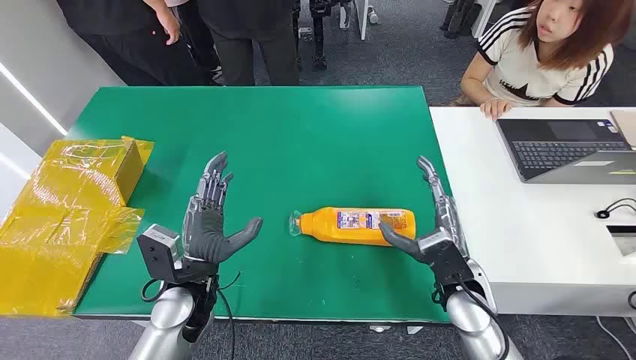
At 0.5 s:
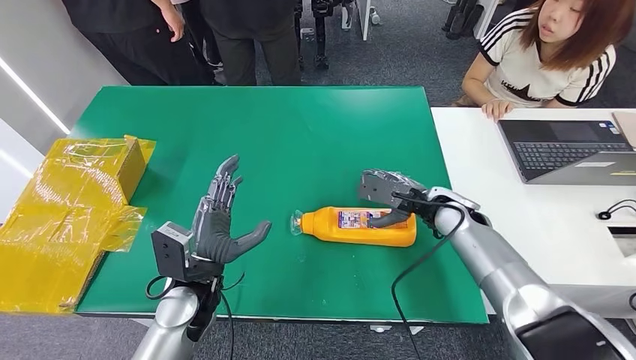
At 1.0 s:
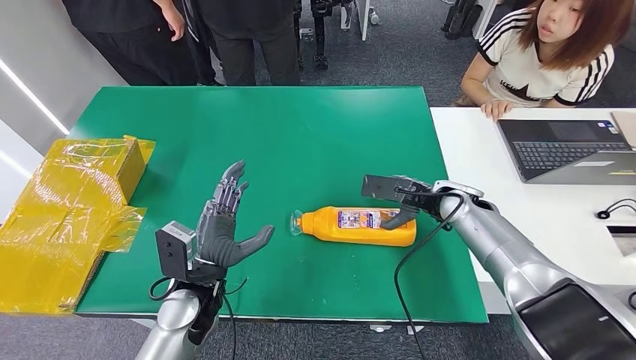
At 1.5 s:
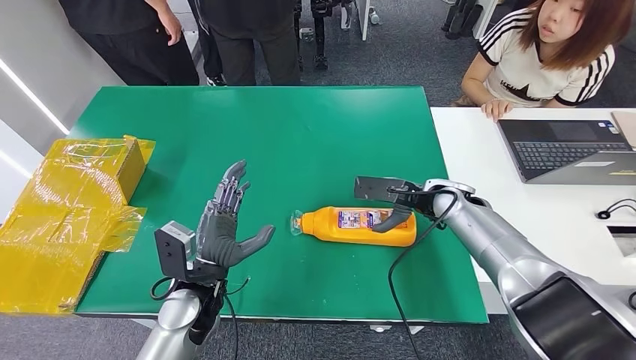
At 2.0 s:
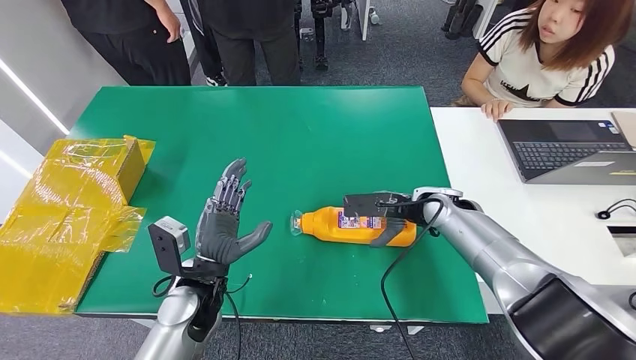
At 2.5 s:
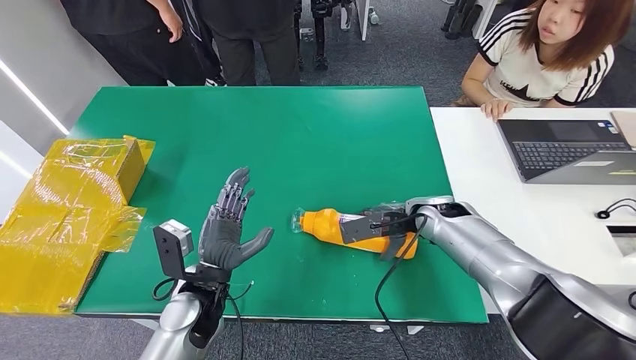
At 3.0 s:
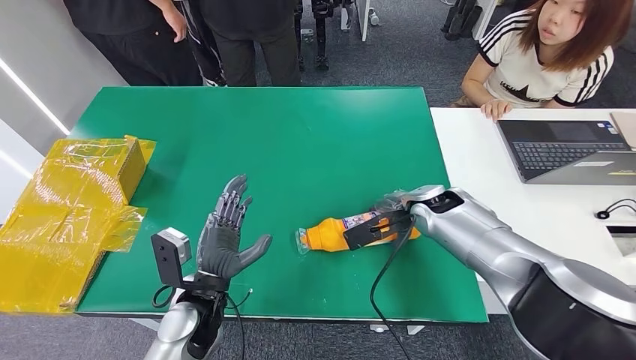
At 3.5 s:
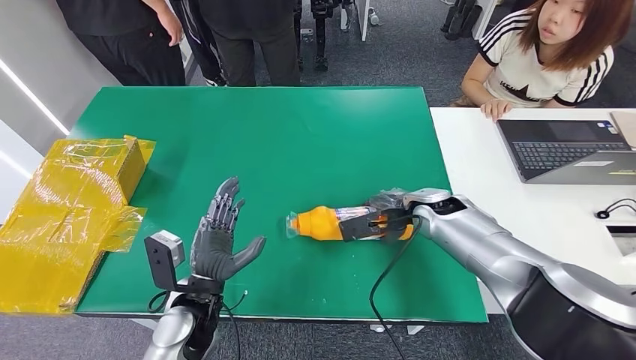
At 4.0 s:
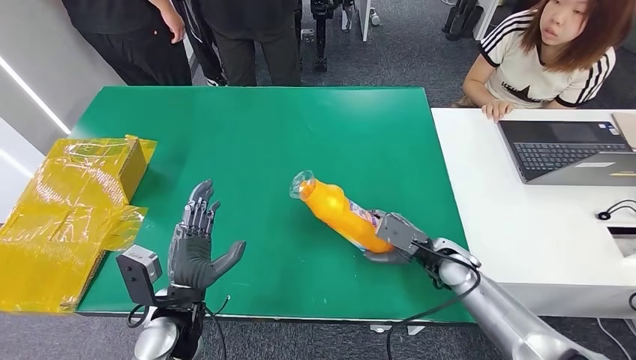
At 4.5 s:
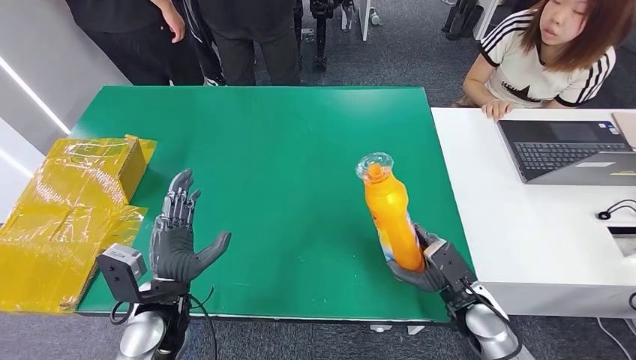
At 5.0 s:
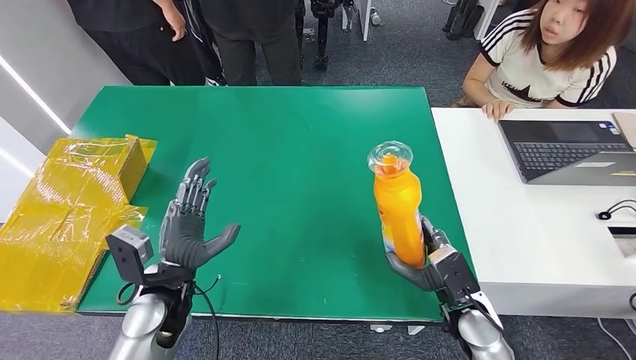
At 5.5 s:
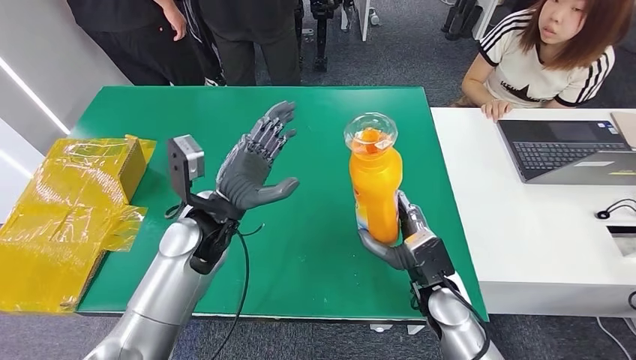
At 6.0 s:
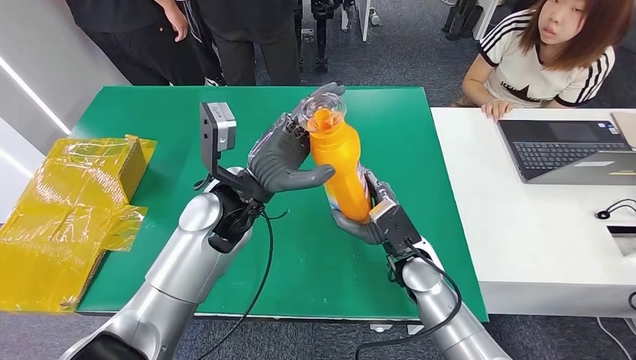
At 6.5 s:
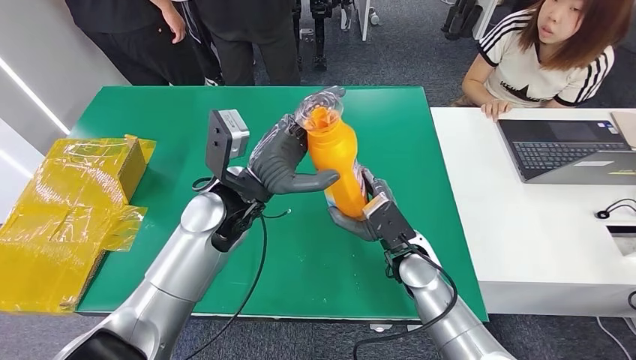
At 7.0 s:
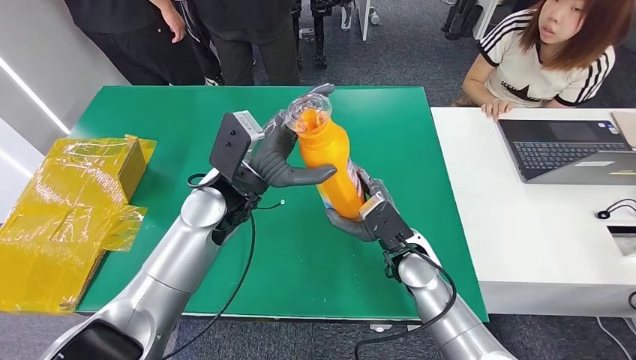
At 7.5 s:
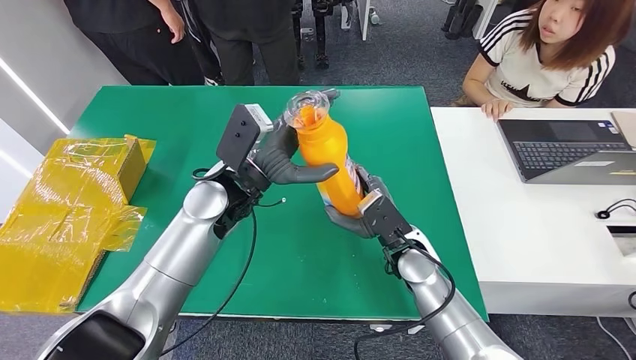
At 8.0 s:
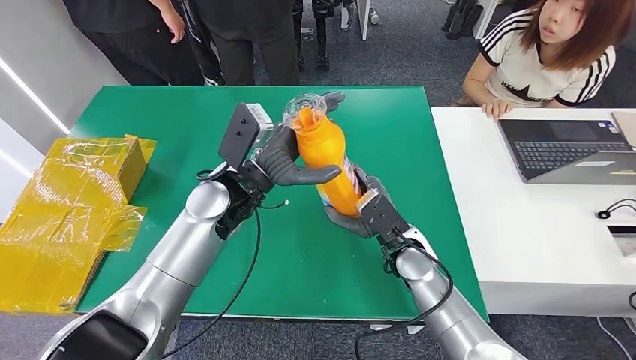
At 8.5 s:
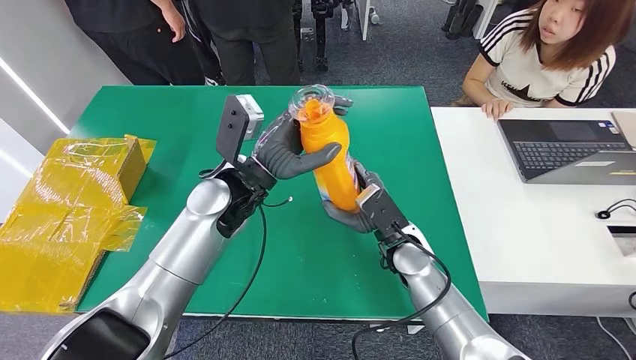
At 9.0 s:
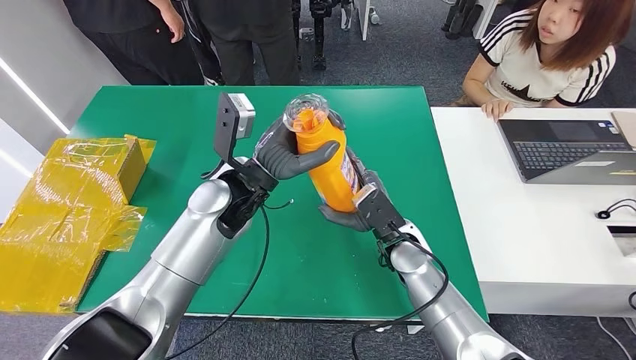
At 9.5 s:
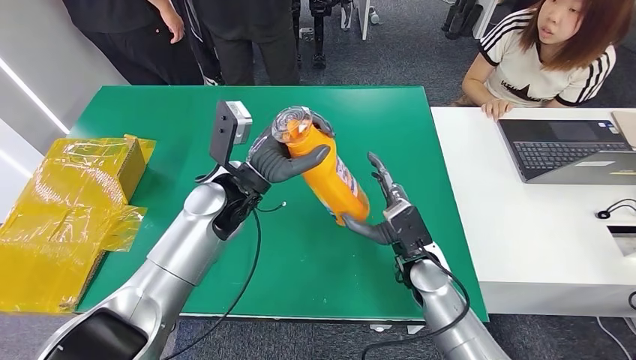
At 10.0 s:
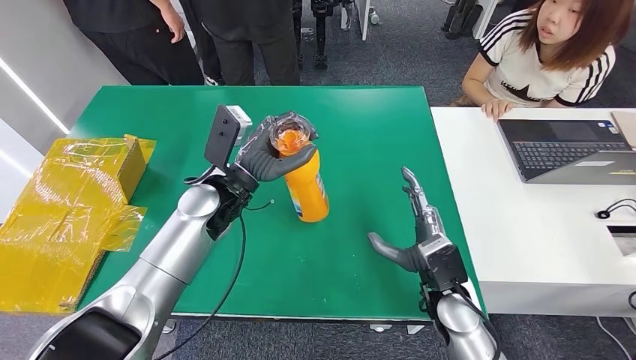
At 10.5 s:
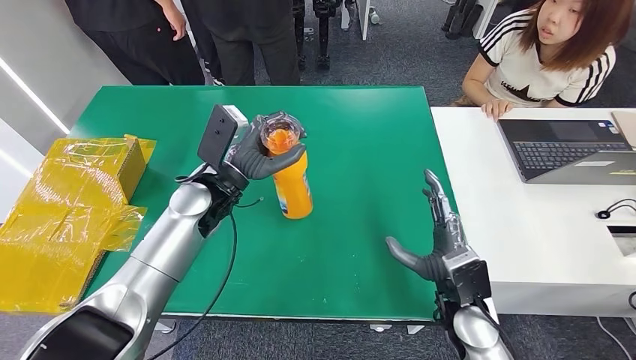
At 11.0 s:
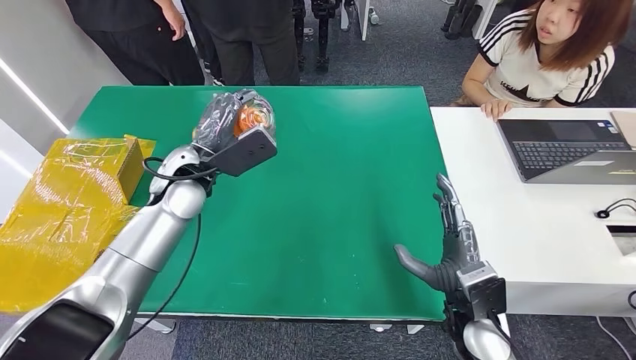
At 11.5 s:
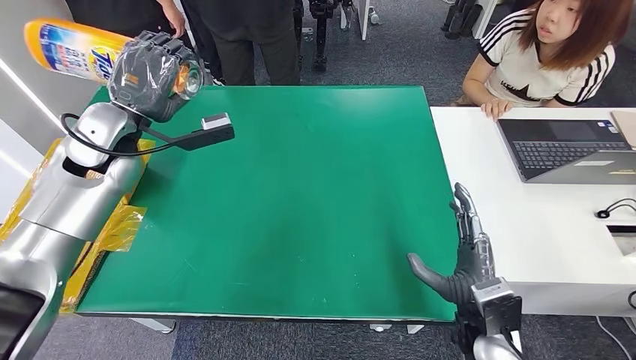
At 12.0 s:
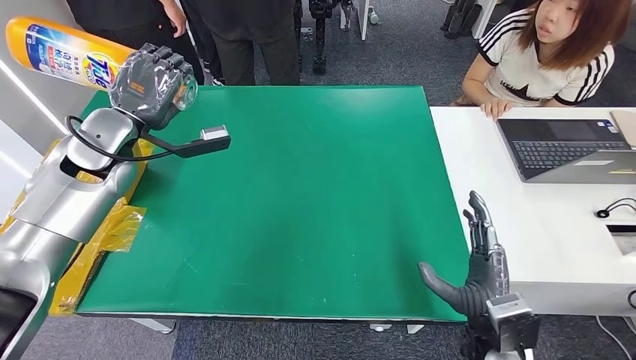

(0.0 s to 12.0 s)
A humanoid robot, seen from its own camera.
Step, 0.0 s - 5.0 s: Pick up the bottle from the table.
2.0 s - 4.0 s: The right hand travels downward and backward by approximately 10 cm, while the left hand ends up some 5 cm from where it was.
8.0 s - 10.0 s: The right hand shifts about 10 cm backward and to the right.

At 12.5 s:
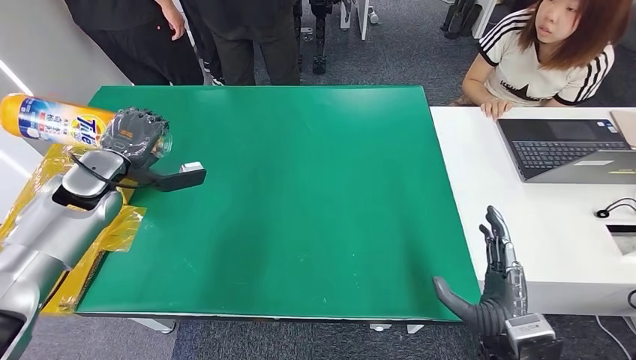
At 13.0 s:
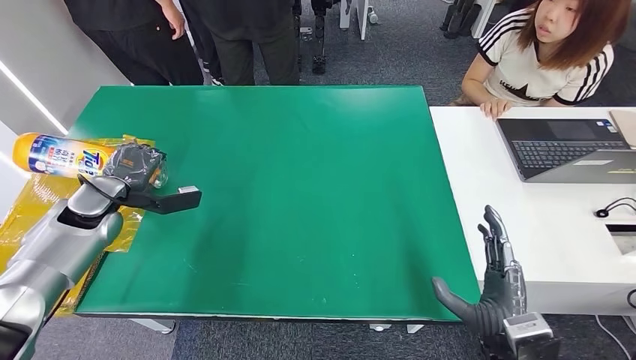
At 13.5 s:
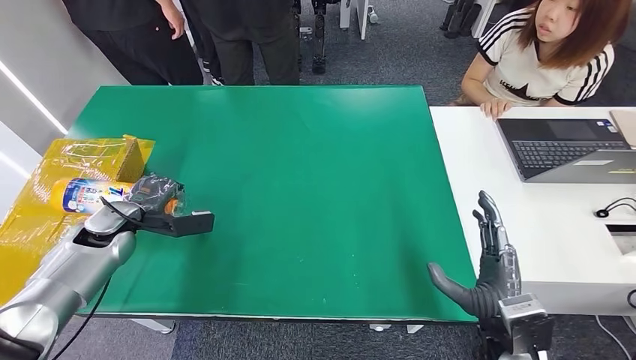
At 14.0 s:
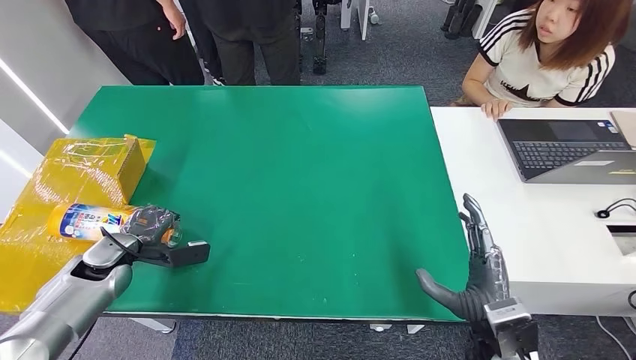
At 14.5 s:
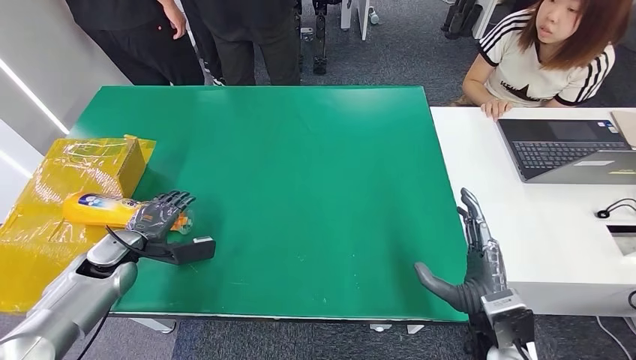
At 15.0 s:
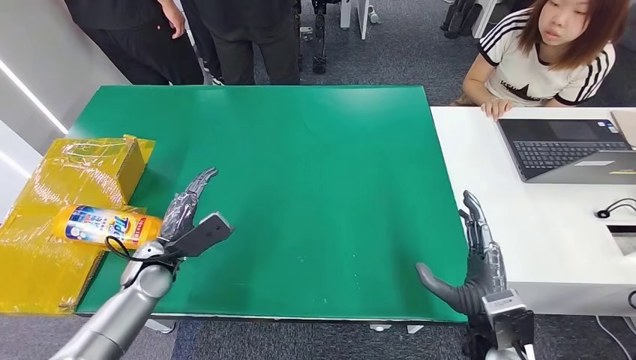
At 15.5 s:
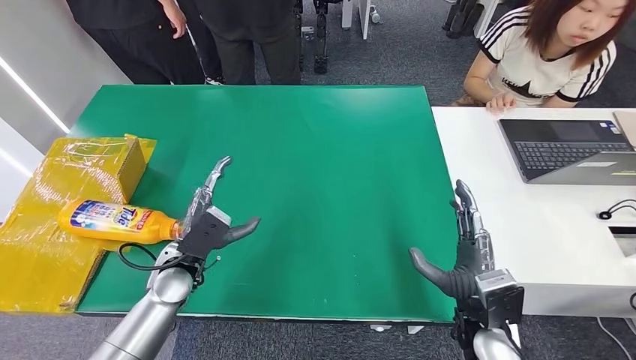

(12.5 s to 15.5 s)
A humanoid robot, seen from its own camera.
Step, 12.5 s - 15.5 s: Turn the bottle to the front side.
12.5 s - 14.0 s: The left hand shifts about 15 cm downward and backward.
14.0 s - 15.5 s: The left hand shifts roughly 15 cm to the right.
